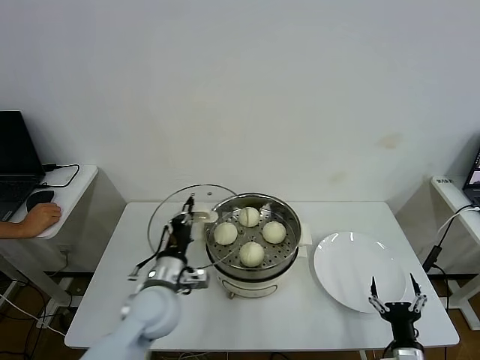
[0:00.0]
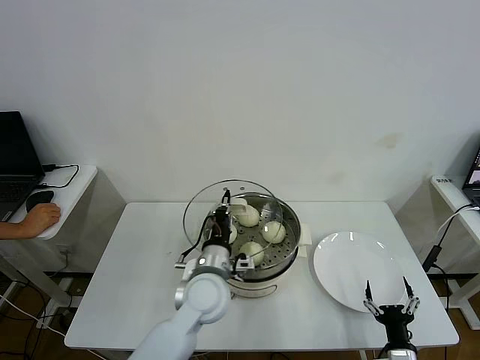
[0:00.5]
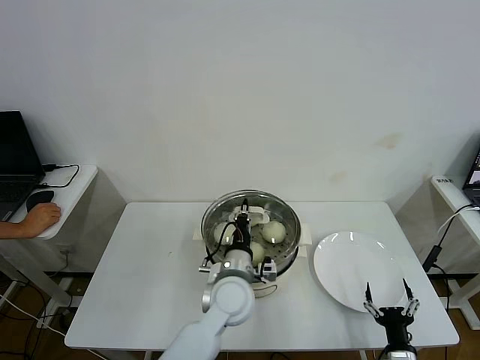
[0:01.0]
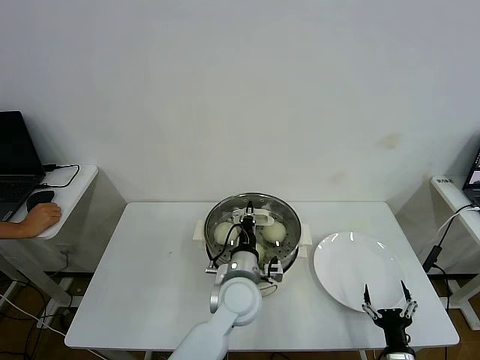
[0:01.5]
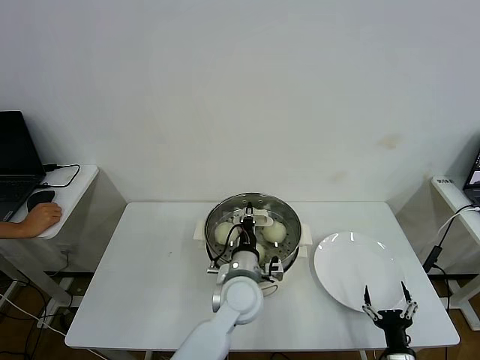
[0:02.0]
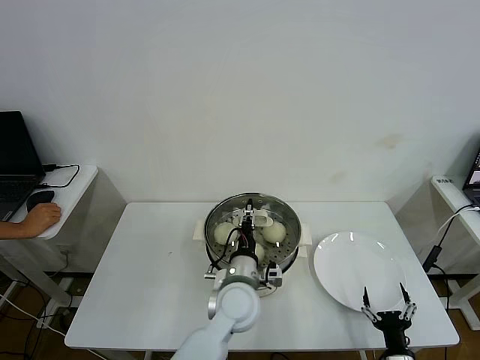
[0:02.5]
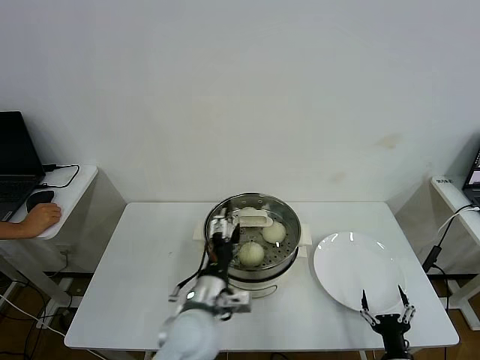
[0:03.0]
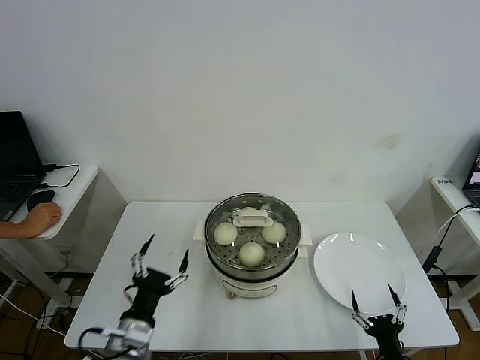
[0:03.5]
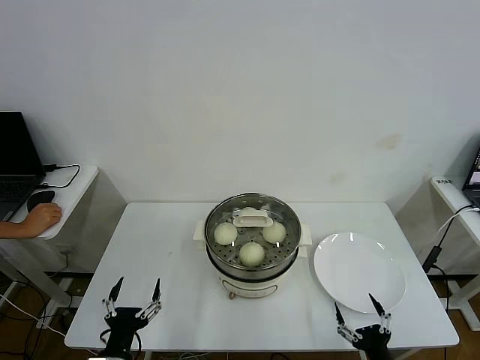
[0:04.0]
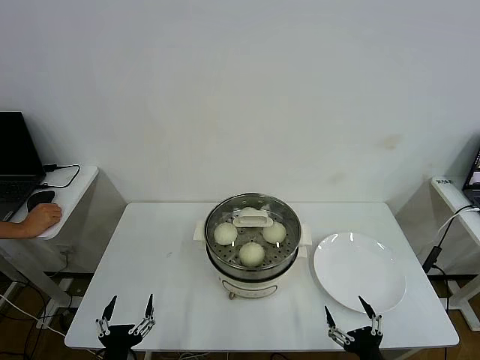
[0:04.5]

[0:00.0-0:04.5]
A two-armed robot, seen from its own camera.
Step, 0:00.0 to 0:02.5: Place the pot lid on the steamer with left gripper.
0:00.0 to 0:02.0: The left gripper is displaced to the right by approximately 20 cm.
0:02.0 to 0:04.5: The right gripper is displaced upward and backward by roughly 10 cm. Meanwhile the left gripper shifts roughly 35 cm to the left and backward, and opens up.

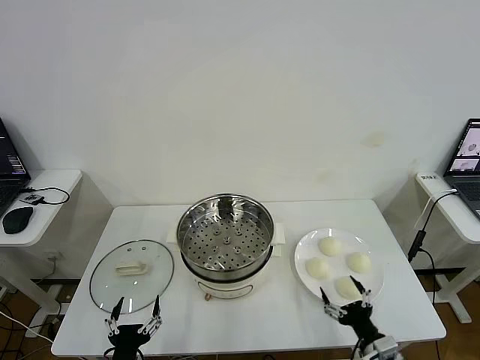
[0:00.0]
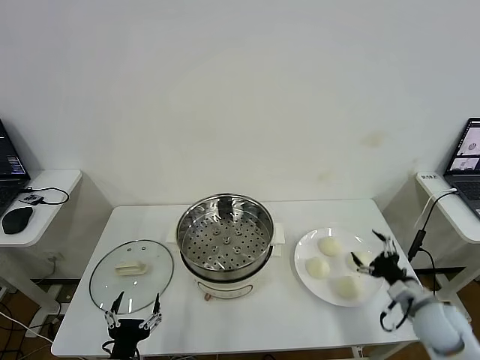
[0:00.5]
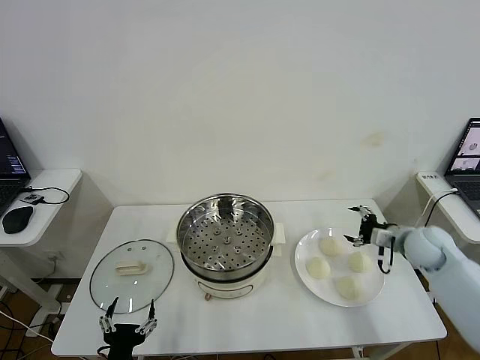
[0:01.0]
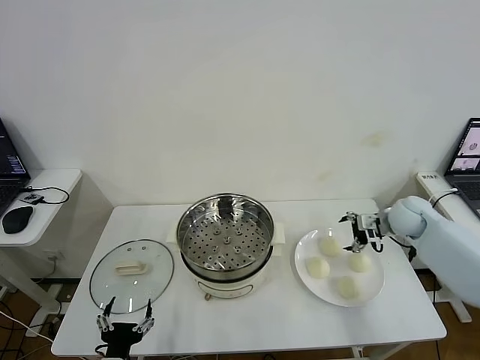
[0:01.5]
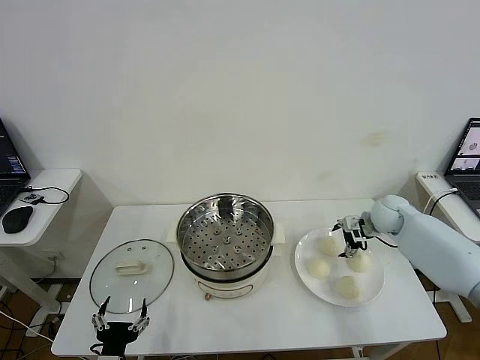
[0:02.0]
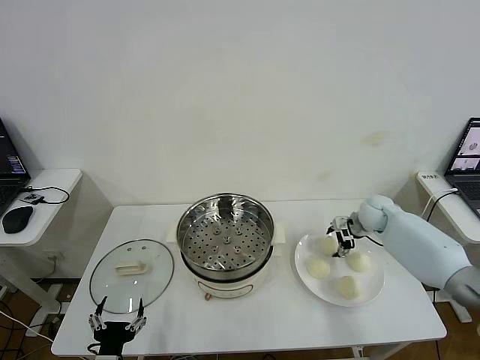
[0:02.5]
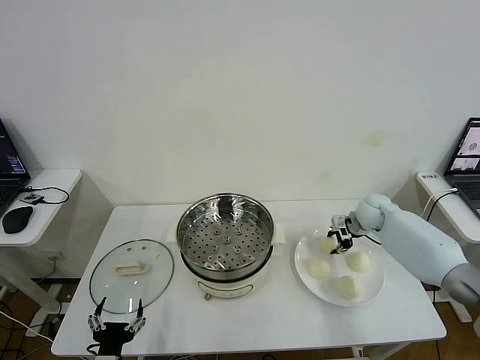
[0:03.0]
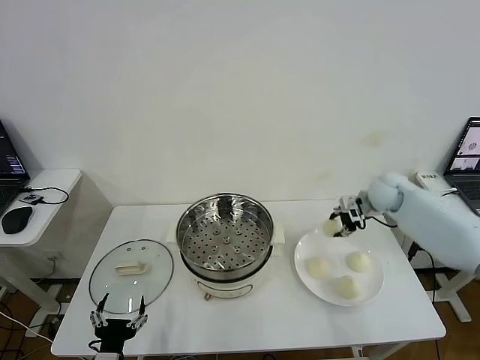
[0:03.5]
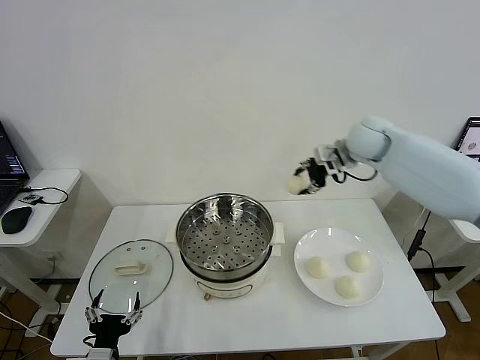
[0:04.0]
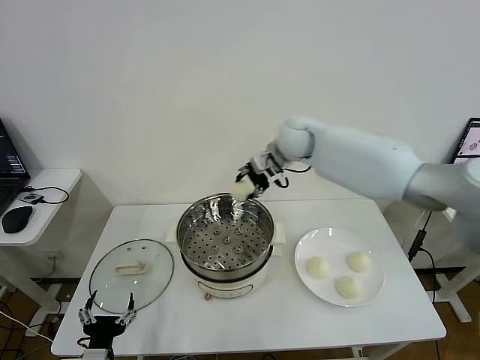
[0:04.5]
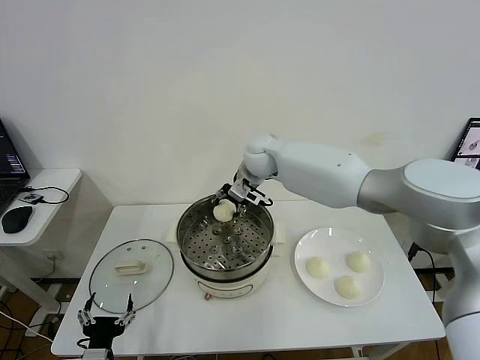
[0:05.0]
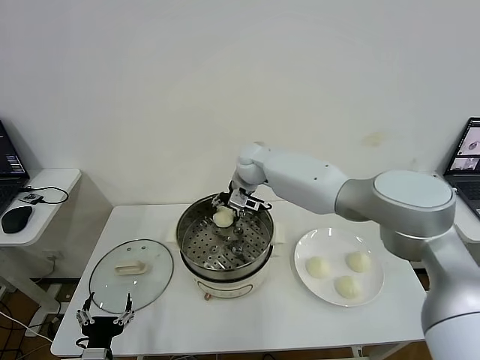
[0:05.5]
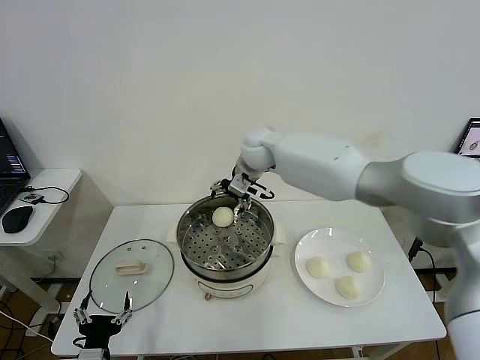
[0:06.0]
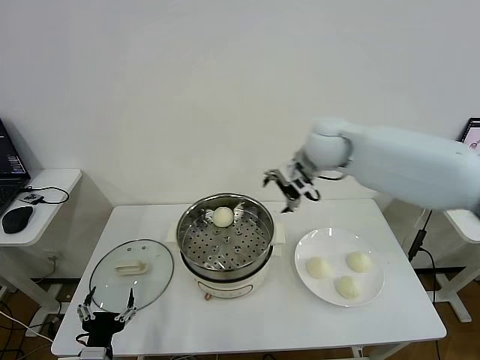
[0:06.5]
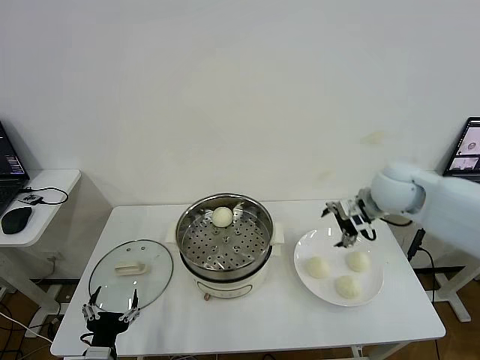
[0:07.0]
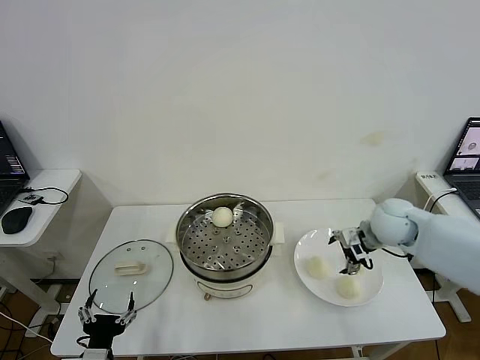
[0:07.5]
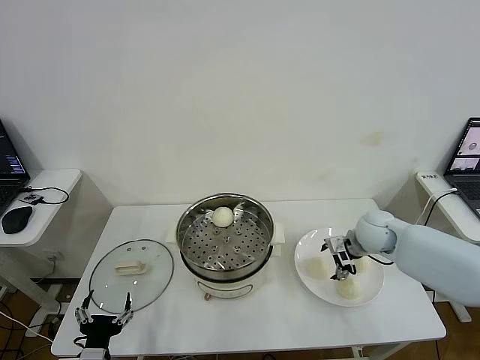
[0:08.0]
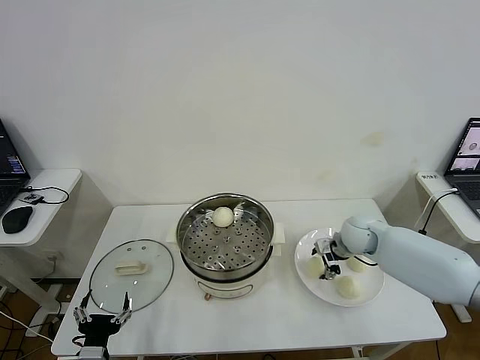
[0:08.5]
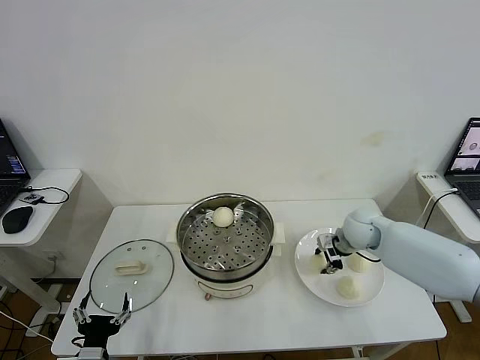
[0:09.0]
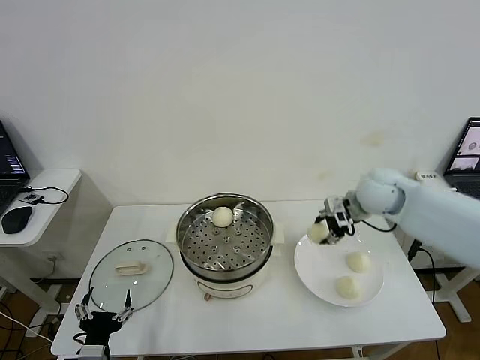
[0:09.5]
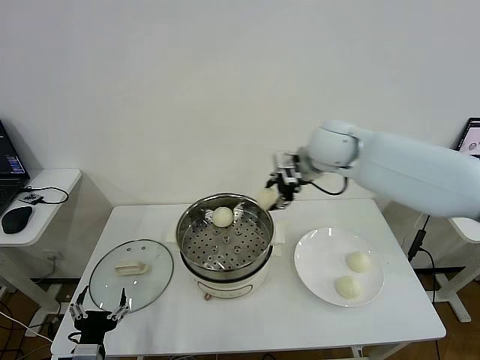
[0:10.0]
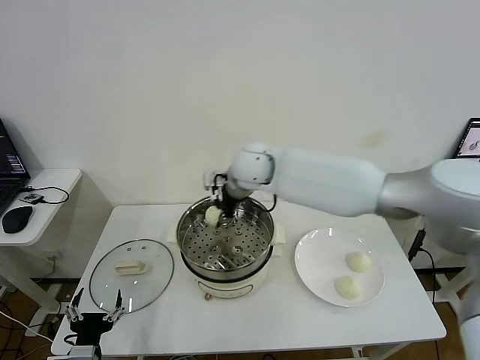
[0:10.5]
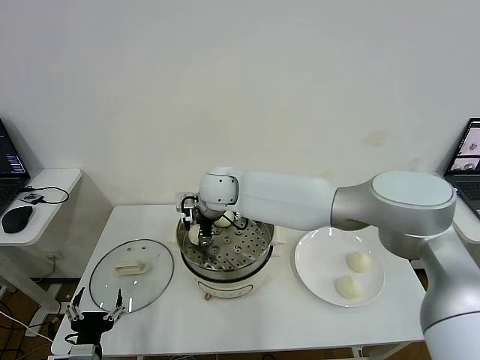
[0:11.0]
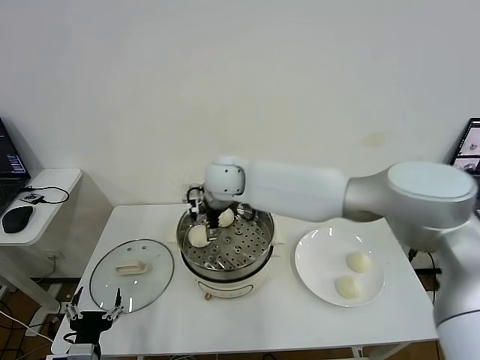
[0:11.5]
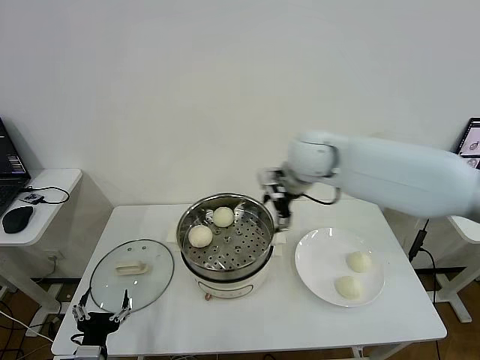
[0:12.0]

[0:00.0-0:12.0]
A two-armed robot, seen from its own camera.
Step, 0:00.0 to 0:02.5: Grasp the baozi in the plate with right gripper.
Step, 0:03.5 to 0:05.5: Place the baozi on the steamer with right gripper.
Step, 0:06.0 to 0:08.5: Grasp the baozi in the plate with right gripper.
Step, 0:09.0 to 0:11.0: Place the baozi on the steamer with right gripper.
0:02.0 to 0:04.0: The right gripper travels upward and to the left by approximately 25 cm, and closes up.
0:04.0 to 0:06.0: The right gripper shifts roughly 15 cm to the left, and opens its fingers.
0:06.0 to 0:08.0: The right gripper moves to the right, downward and backward, approximately 35 cm.
0:08.0 to 0:10.0: The right gripper goes roughly 30 cm upward and to the left, and closes up.
0:10.0 to 0:12.0: The right gripper travels to the left and back again, approximately 20 cm each way, and opens up.

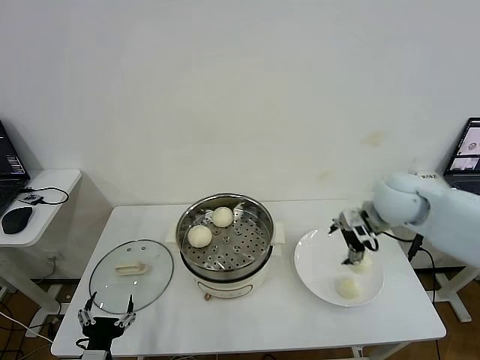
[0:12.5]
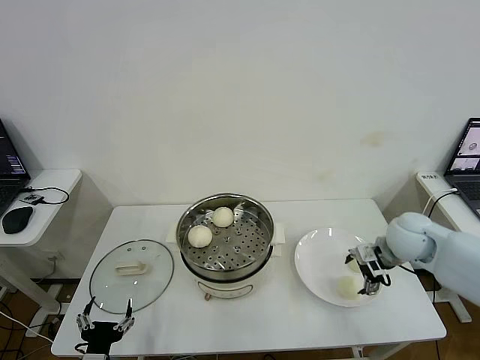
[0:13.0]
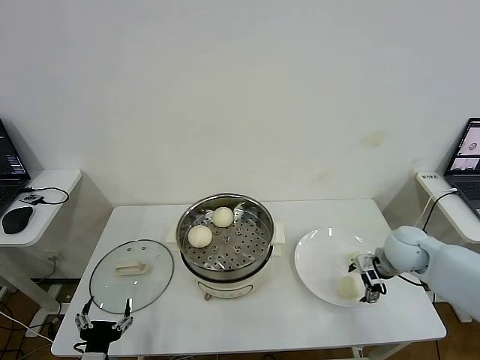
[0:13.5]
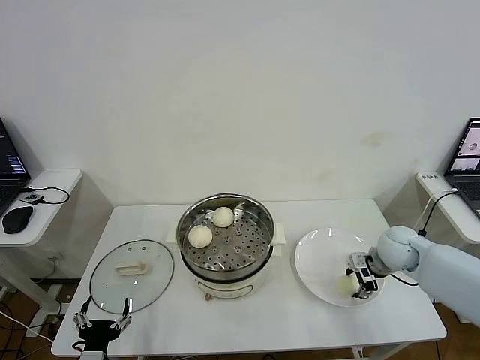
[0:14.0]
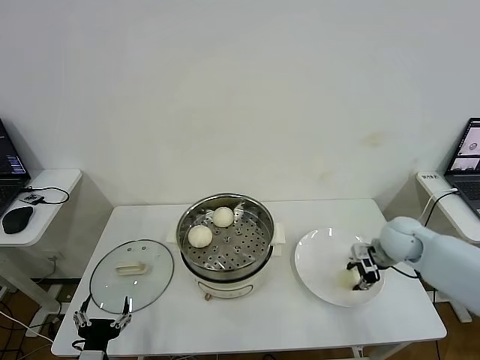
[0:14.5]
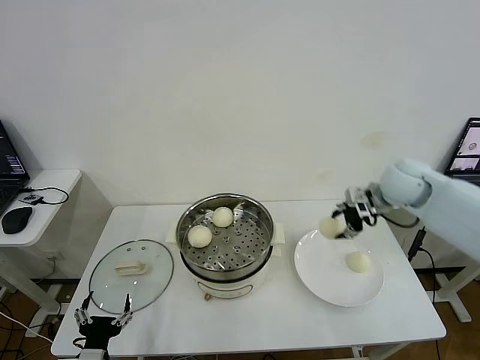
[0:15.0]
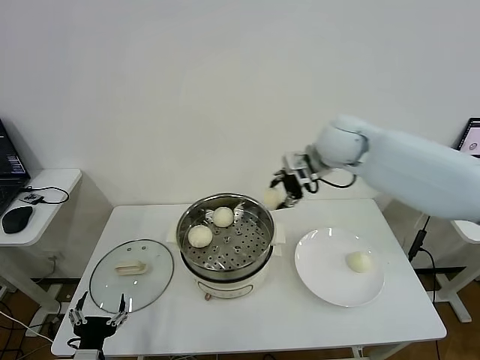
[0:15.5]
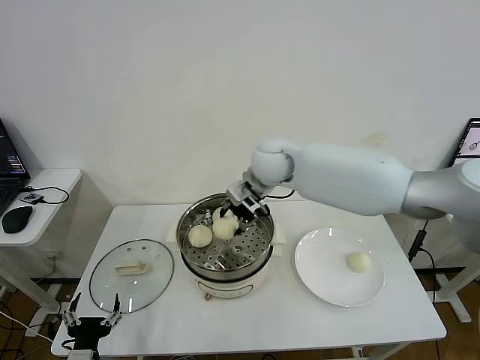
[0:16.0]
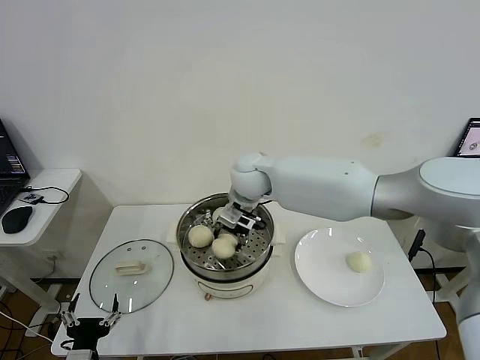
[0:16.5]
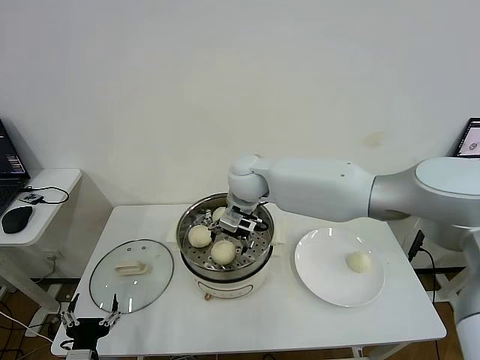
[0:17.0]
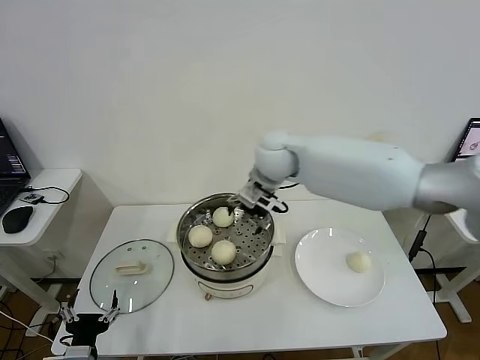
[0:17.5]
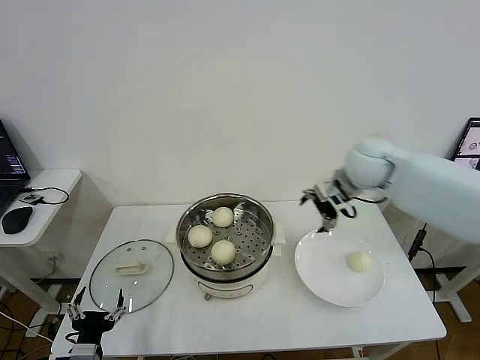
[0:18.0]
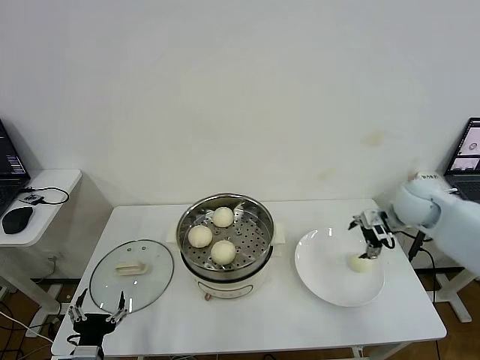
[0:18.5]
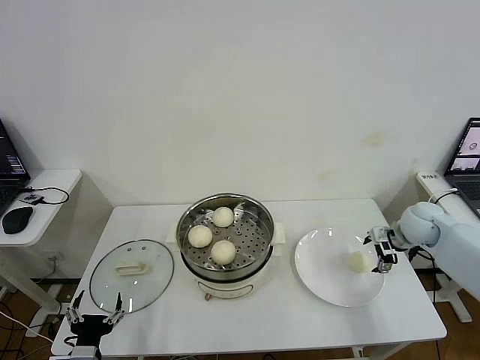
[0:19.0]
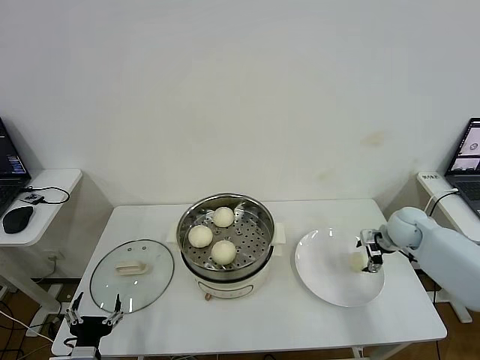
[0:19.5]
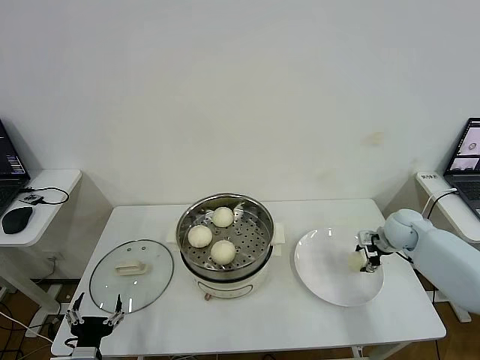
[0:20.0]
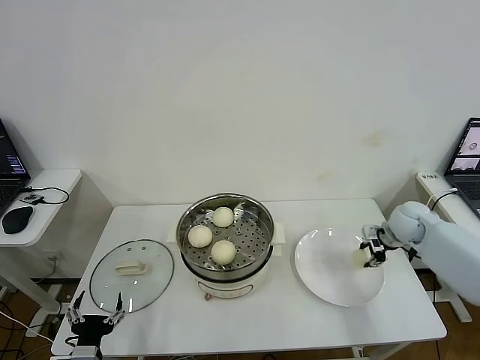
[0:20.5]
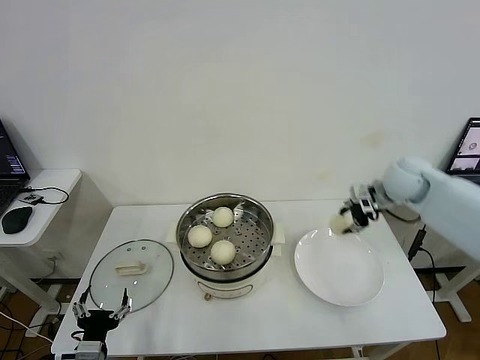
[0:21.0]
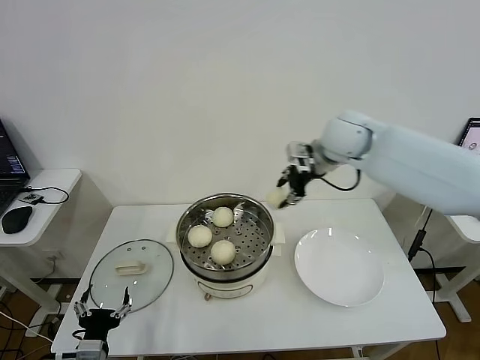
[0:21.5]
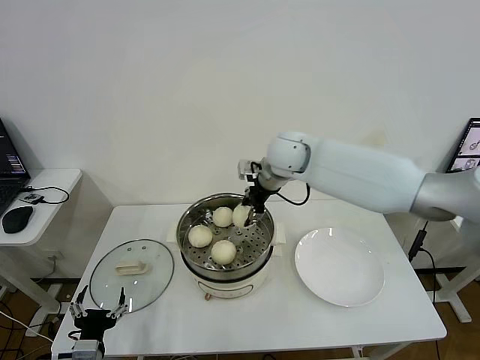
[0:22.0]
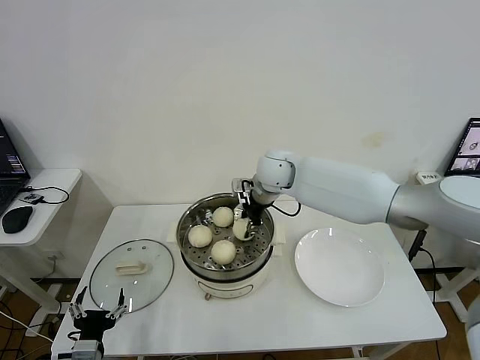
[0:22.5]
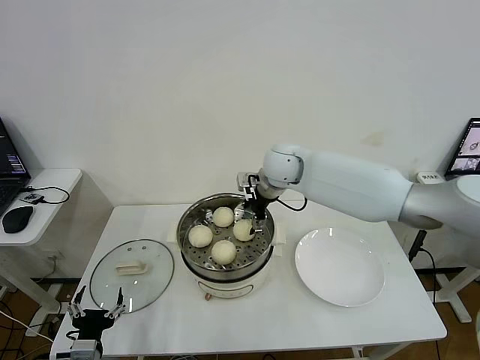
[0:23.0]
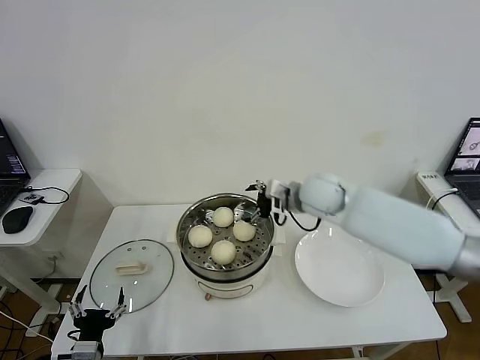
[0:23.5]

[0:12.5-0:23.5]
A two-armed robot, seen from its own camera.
Step, 0:12.5 to 0:14.0: Grasp the baozi in the plate with right gripper.
Step, 0:14.5 to 0:16.5: Place the baozi on the steamer with right gripper.
Step, 0:17.0 to 0:20.0: Grasp the baozi in the plate with right gripper.
Step, 0:20.5 to 0:22.5: Place the baozi on the steamer with right gripper.
0:12.5 to 0:14.5: The right gripper shifts some 10 cm downward, and closes its fingers.
0:14.5 to 0:16.0: The right gripper travels to the left and upward by approximately 35 cm.
0:16.0 to 0:18.0: The right gripper goes approximately 20 cm to the right, and opens up.
0:18.0 to 0:20.0: The right gripper travels downward and to the right by roughly 25 cm, and closes.
0:20.0 to 0:21.5: The right gripper travels upward and to the left by roughly 35 cm.
0:21.5 to 0:23.5: The right gripper shifts some 15 cm downward and backward, and opens up.
